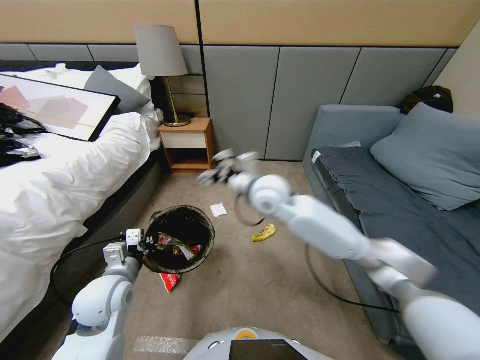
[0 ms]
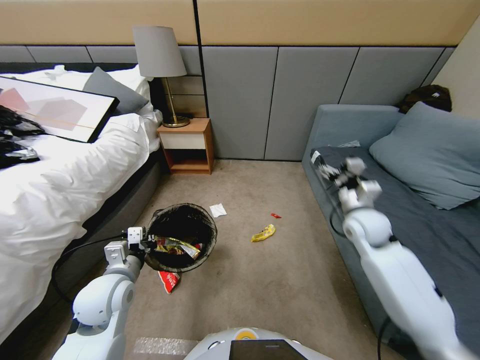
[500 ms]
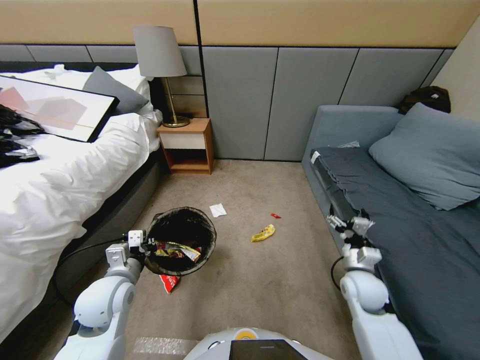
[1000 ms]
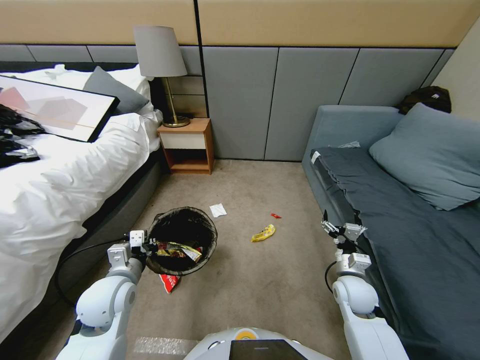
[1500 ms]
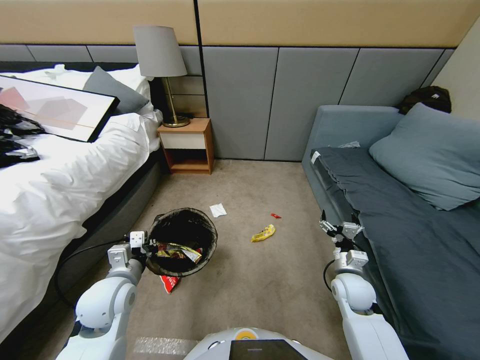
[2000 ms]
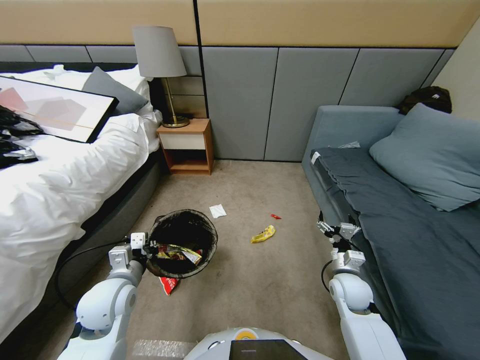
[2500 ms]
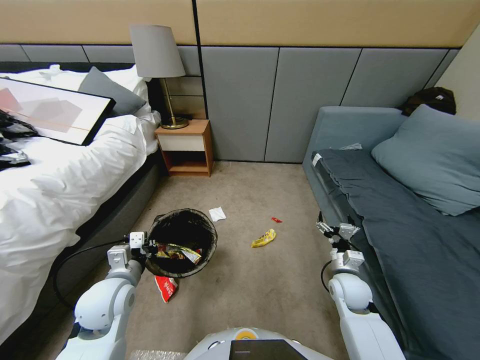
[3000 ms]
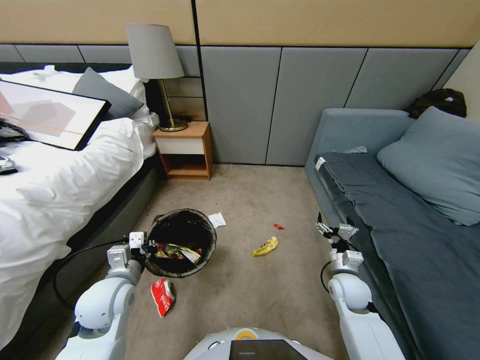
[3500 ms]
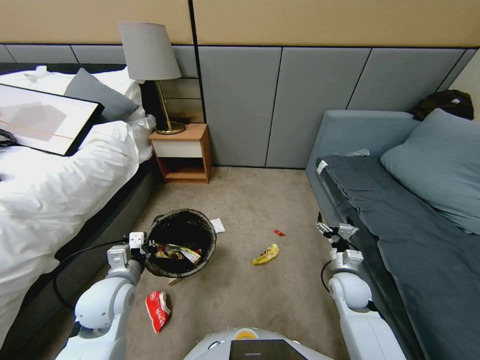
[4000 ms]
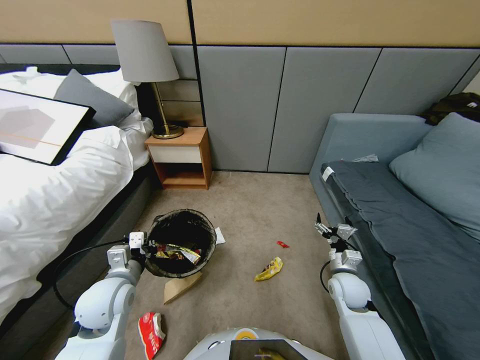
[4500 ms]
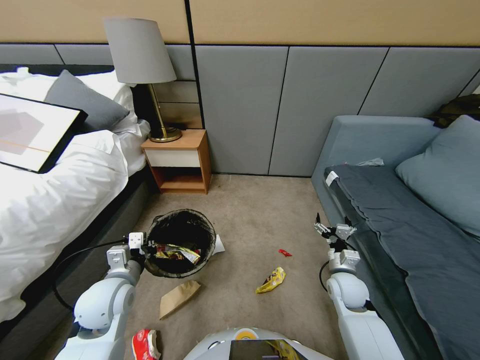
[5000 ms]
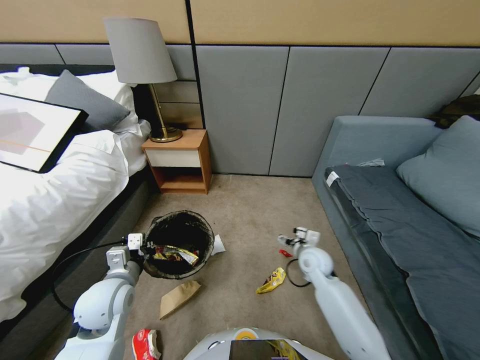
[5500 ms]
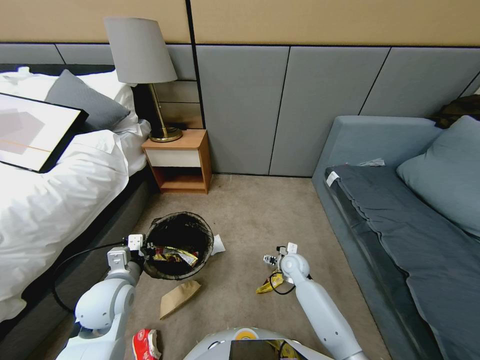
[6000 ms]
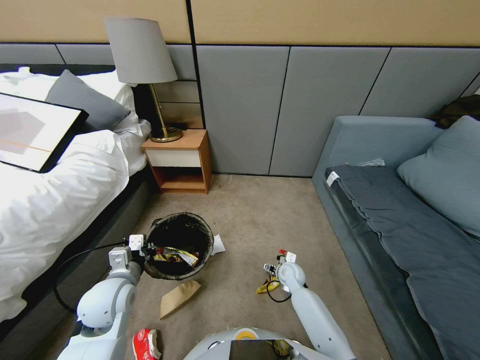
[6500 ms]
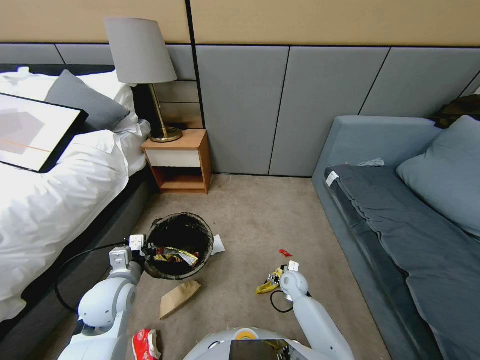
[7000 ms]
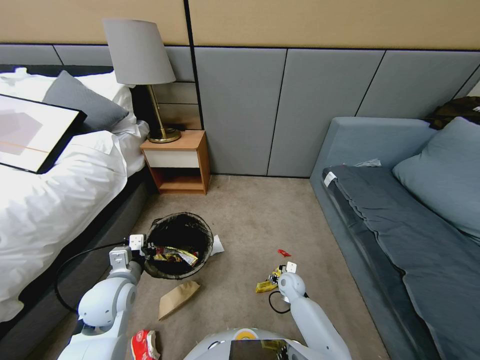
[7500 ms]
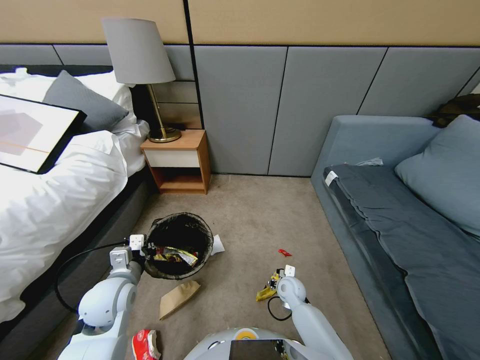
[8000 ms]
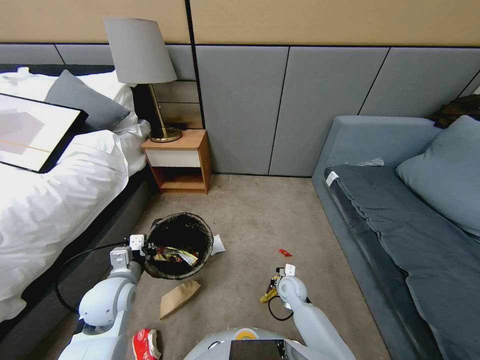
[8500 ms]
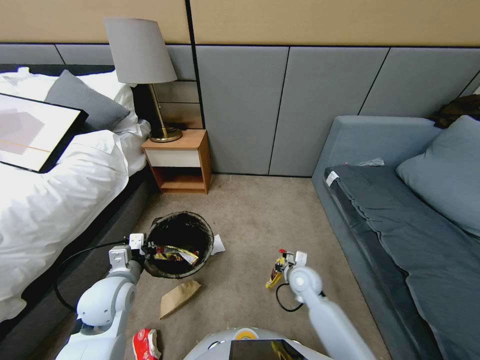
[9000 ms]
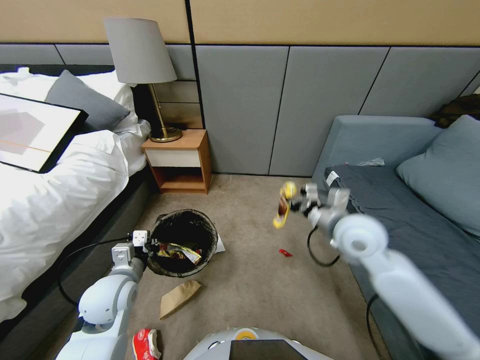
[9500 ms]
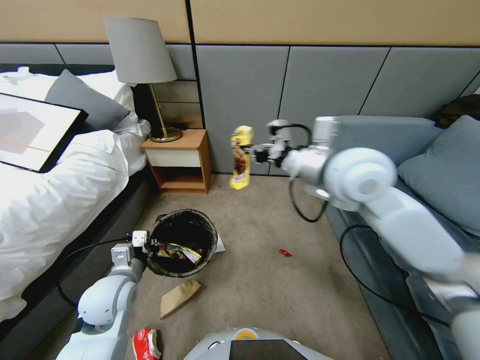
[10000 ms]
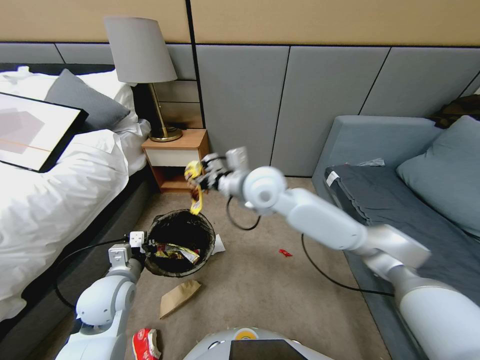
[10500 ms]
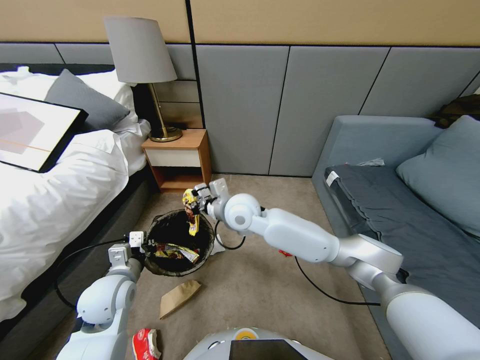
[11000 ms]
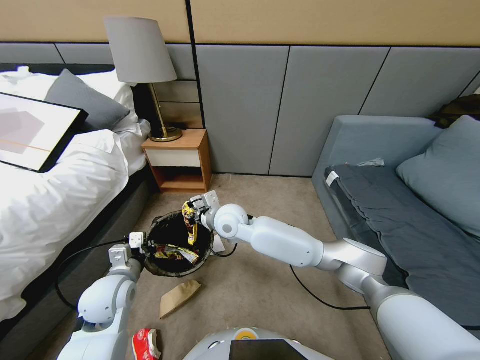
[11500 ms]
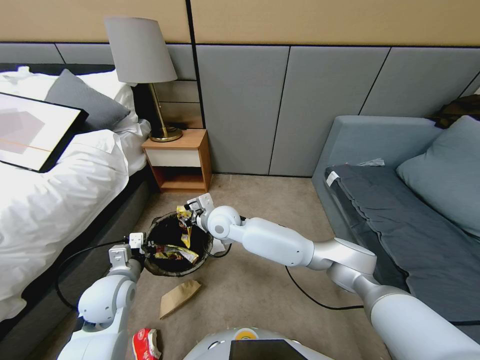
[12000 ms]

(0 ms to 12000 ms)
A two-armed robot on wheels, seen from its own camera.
Task of the whole recording: Pick up the trash bin, then pick up the garbage from the floor and place it into the trash bin.
0 ms - 2000 ms: The right gripper moves downward, to the right and backward, some 35 cm.
2000 ms - 4000 ms: The two grippers keep their place.
4000 ms - 6000 ms: The right gripper travels to the left, forward and downward by approximately 15 cm.
6000 ms - 8000 ms: The right gripper moves backward, some 5 cm, and closes up.
8000 ms - 10000 ms: The right gripper goes approximately 50 cm upward, and closes up.
10000 ms - 12000 ms: The right gripper shifts some 25 cm downward and to the left, and opens its fingers.

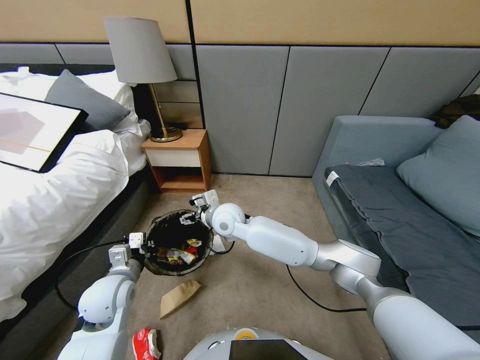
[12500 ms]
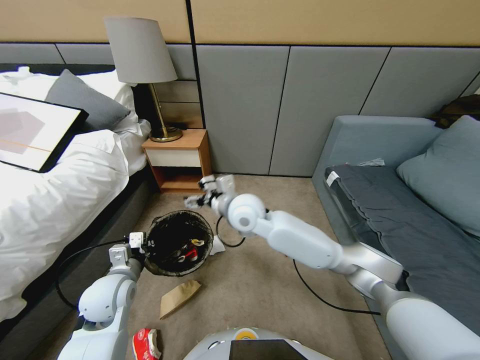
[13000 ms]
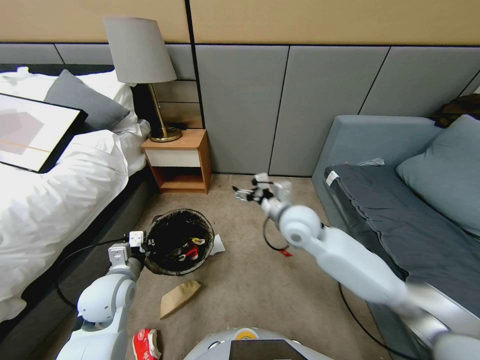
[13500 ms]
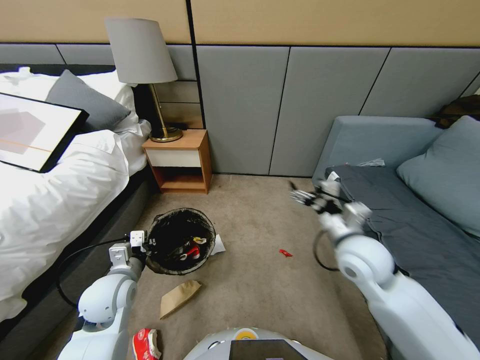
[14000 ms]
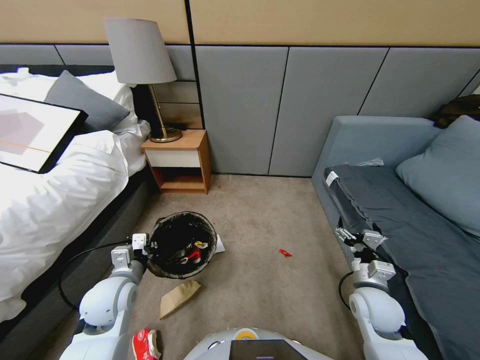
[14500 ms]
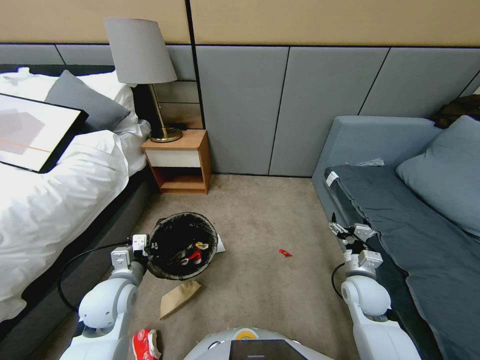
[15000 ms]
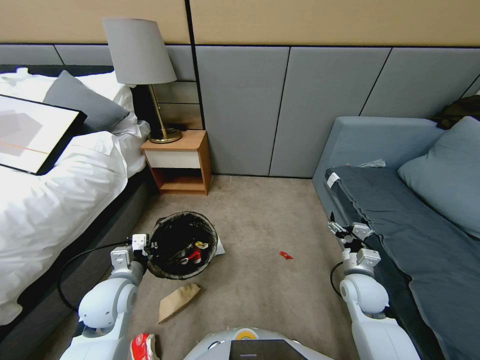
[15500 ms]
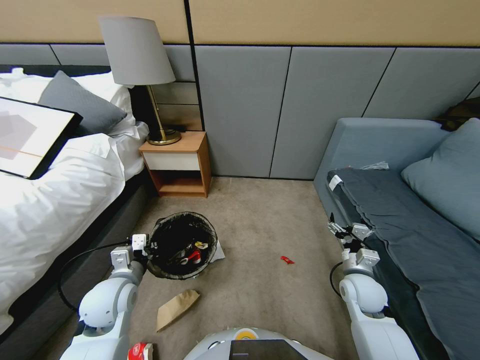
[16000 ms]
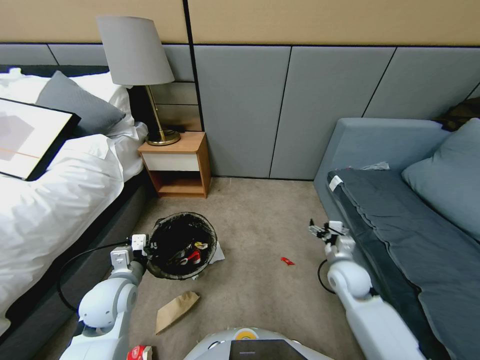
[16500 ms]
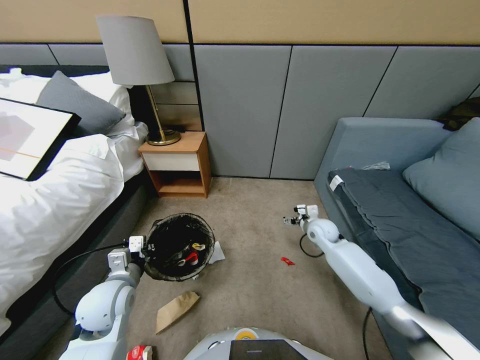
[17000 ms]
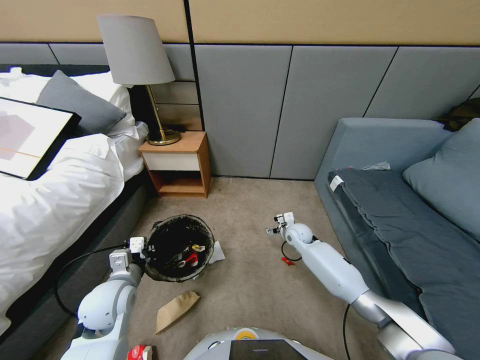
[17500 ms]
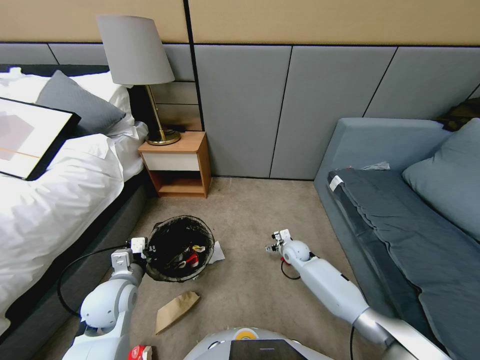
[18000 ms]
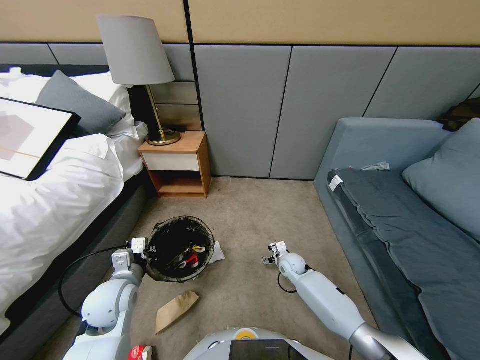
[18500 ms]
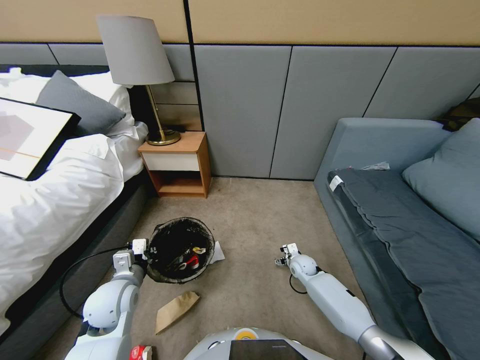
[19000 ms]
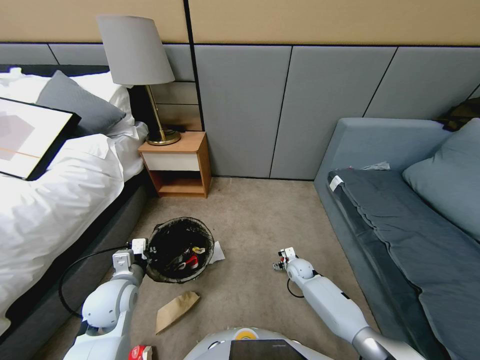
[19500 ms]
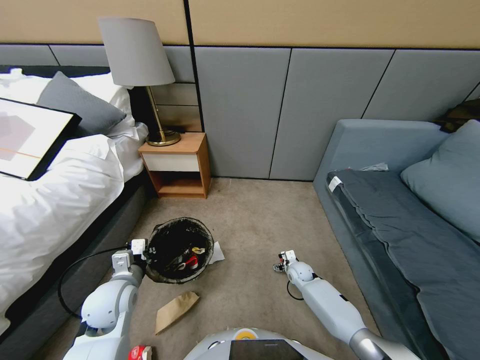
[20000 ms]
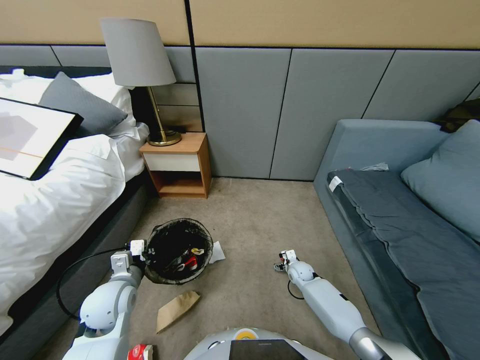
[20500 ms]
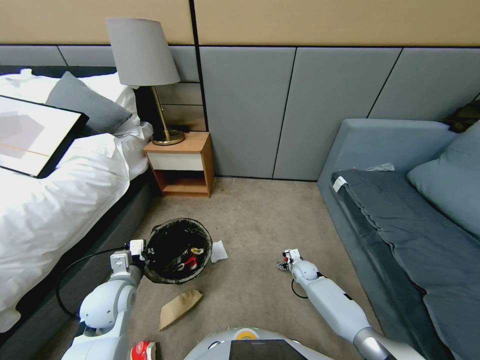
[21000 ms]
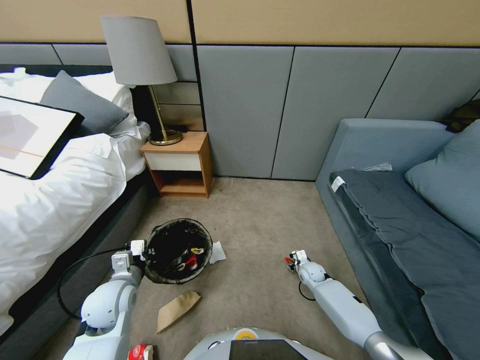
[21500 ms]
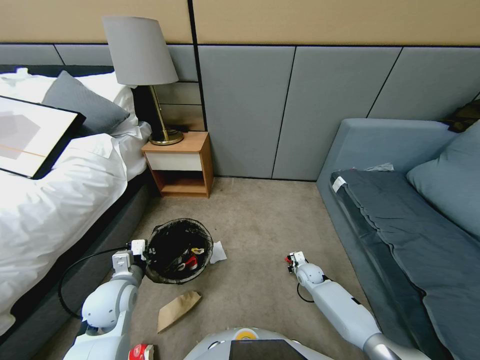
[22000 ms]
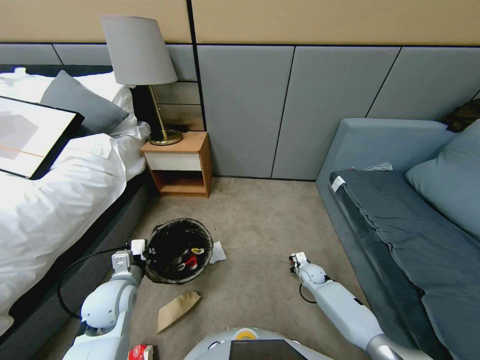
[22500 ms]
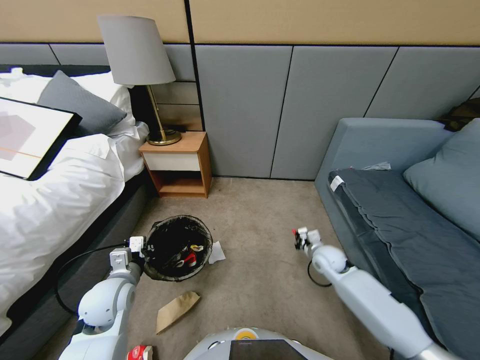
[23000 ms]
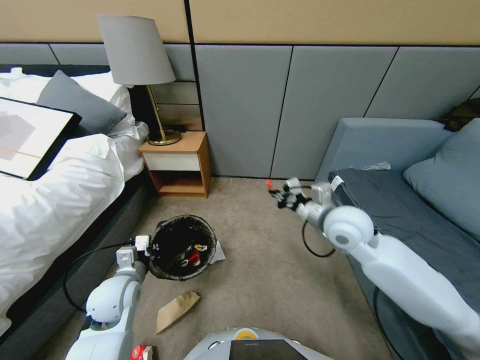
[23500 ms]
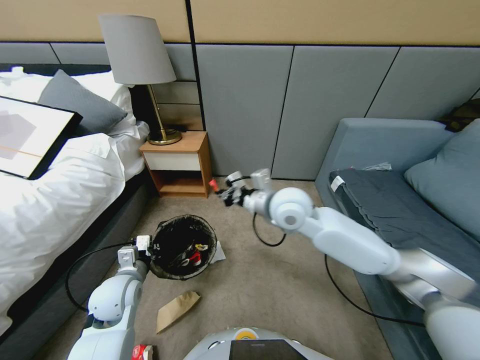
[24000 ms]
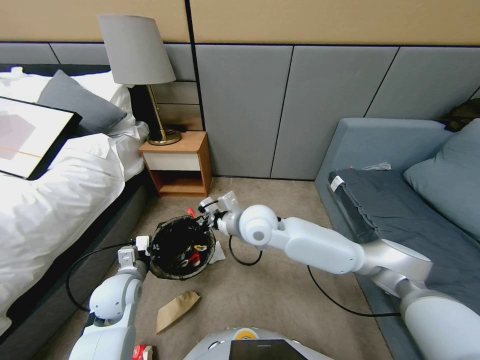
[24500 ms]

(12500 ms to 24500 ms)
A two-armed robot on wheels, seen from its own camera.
Task of the whole recording: Pick up the trash bin, then pick up the garbage from the floor and place it into the trash bin.
12500 ms - 14500 ms: The right gripper goes approximately 40 cm to the right and backward.
14500 ms - 16500 ms: The right gripper shifts approximately 10 cm forward.
16500 ms - 18500 ms: The right gripper shifts roughly 20 cm downward and to the left.
18500 ms - 20500 ms: The right gripper shifts some 5 cm downward.
20500 ms - 22500 ms: The right gripper ends up approximately 5 cm from where it was, and closes.
22500 ms - 24500 ms: The right gripper moves upward and to the left, approximately 40 cm.

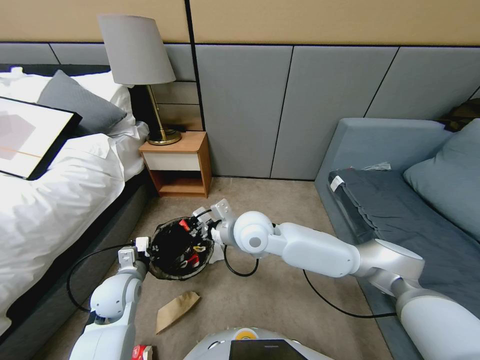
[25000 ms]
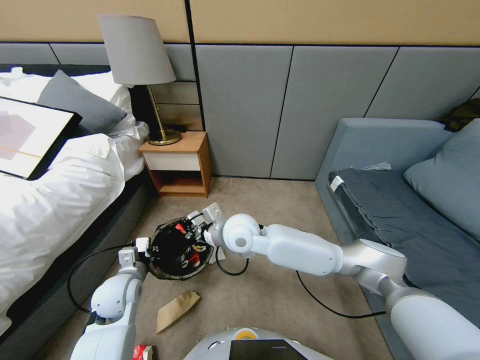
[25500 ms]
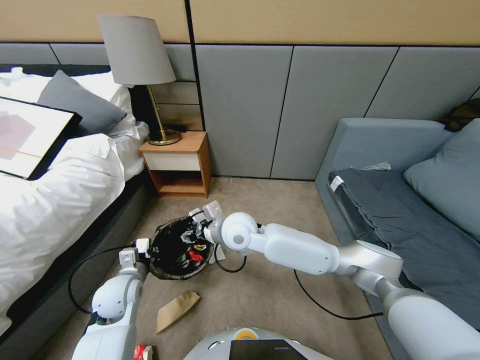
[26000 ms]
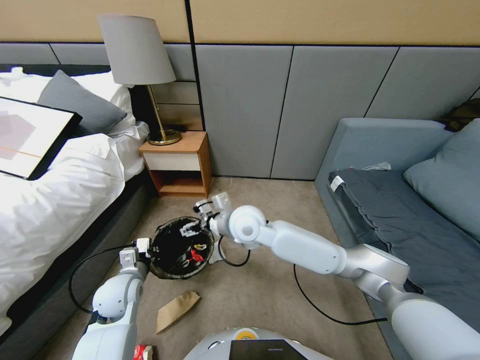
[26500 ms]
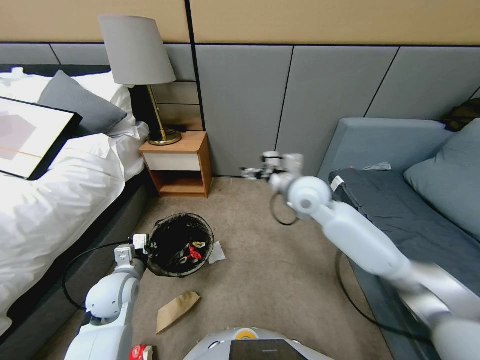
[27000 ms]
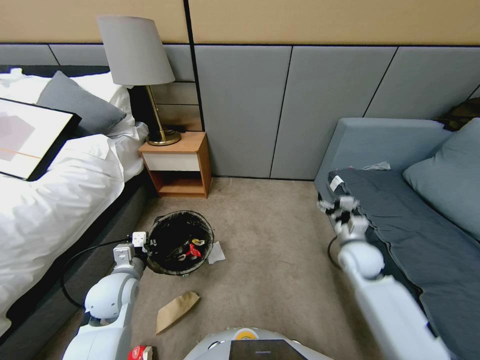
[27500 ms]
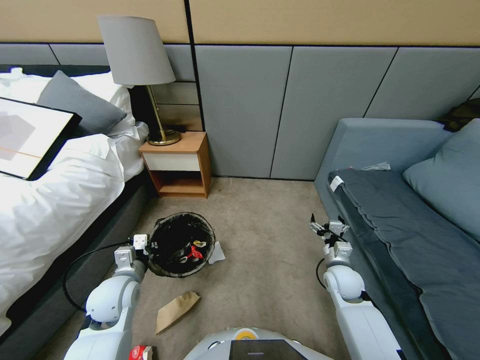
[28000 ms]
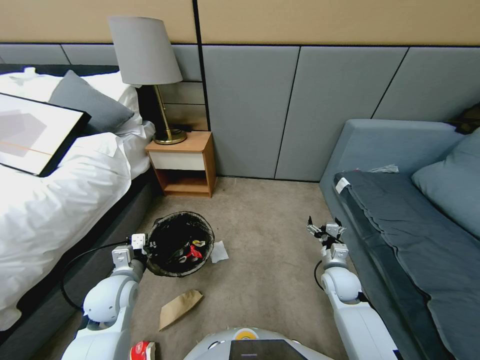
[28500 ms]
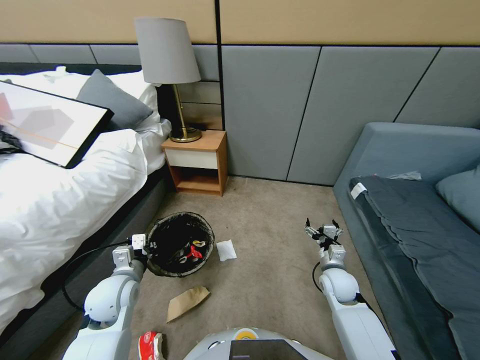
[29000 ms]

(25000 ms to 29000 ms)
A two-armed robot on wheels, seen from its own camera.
Task of the whole recording: Pick up the trash bin, then pick up the garbage from the floor and place it into the trash bin.
25000 ms - 27000 ms: The right gripper heads to the right, covering approximately 25 cm, and opens its fingers.
27000 ms - 29000 ms: The right gripper shifts roughly 25 cm downward and backward.
